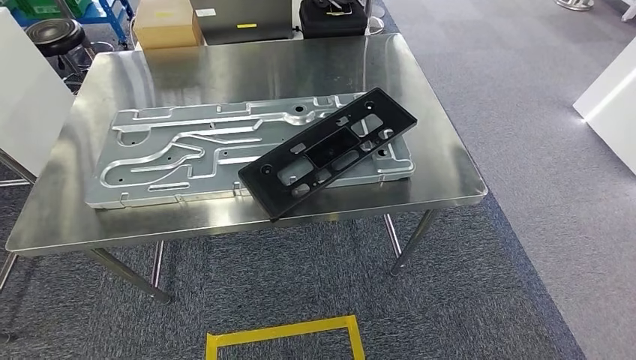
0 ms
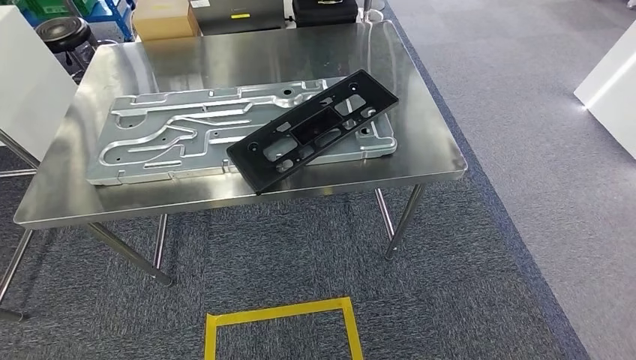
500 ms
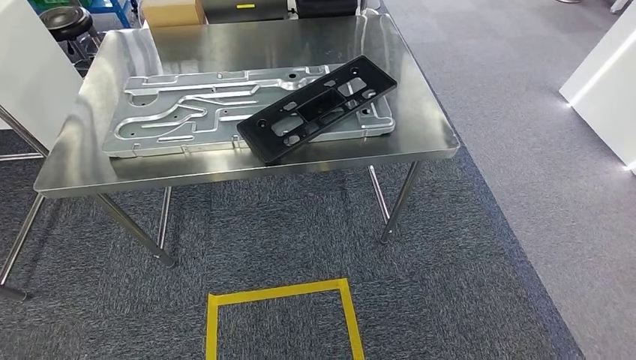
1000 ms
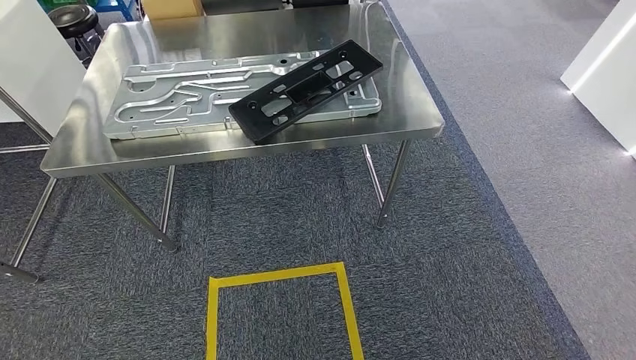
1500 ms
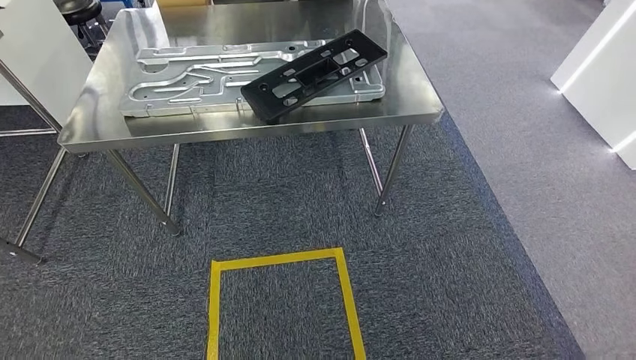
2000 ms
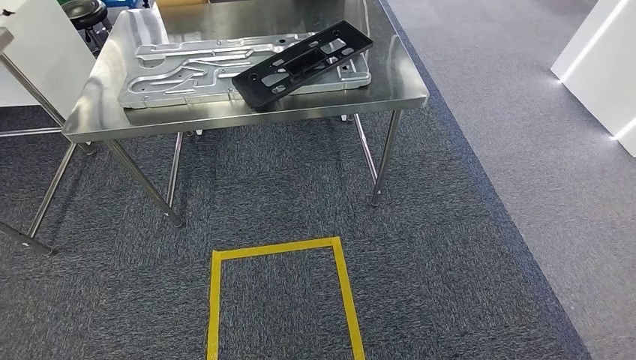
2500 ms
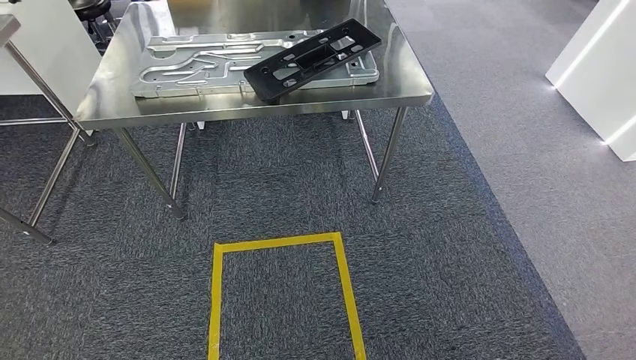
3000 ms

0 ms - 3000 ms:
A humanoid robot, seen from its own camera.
Step, 500 ms - 3000 ms: Move to the initial position of the shelf.
